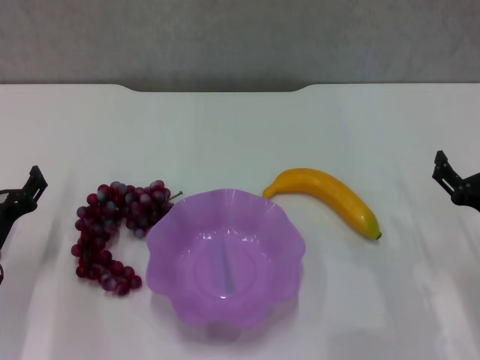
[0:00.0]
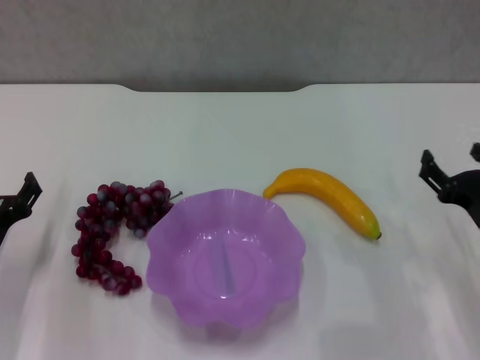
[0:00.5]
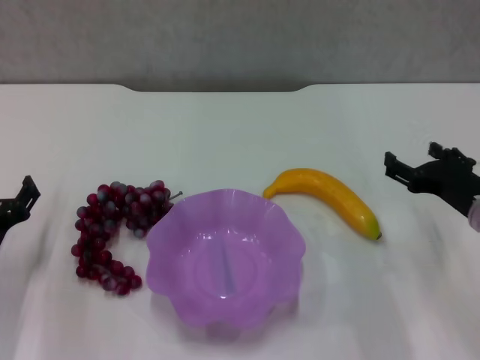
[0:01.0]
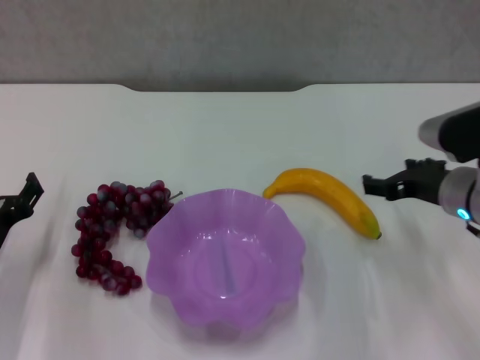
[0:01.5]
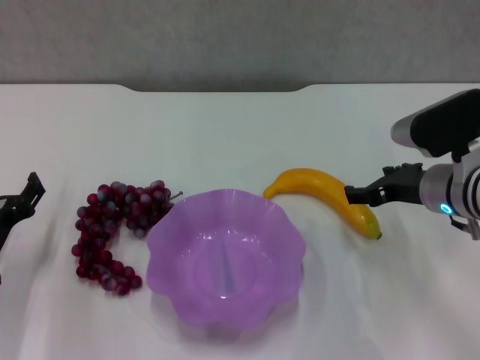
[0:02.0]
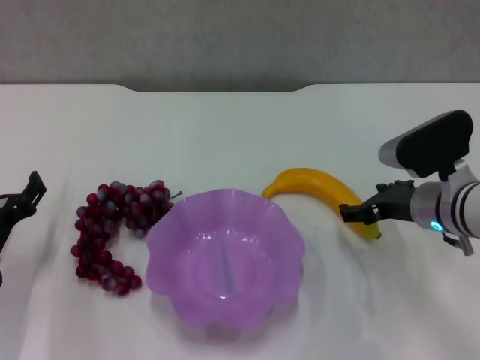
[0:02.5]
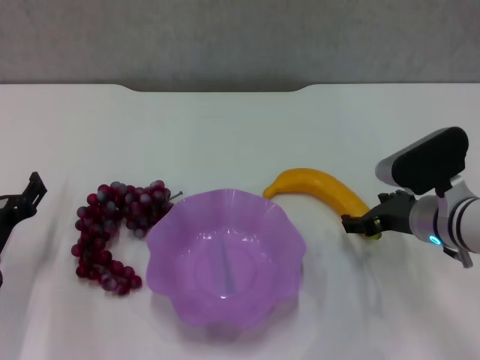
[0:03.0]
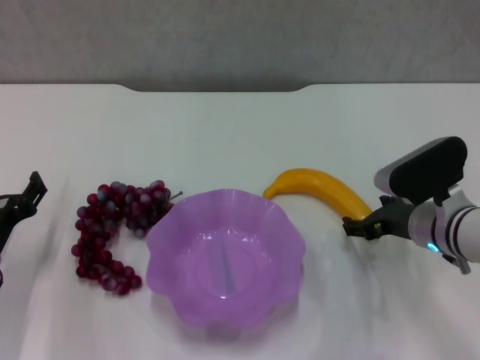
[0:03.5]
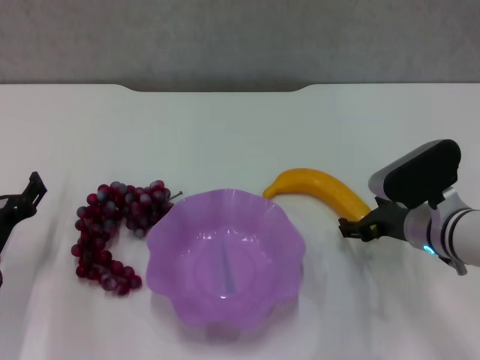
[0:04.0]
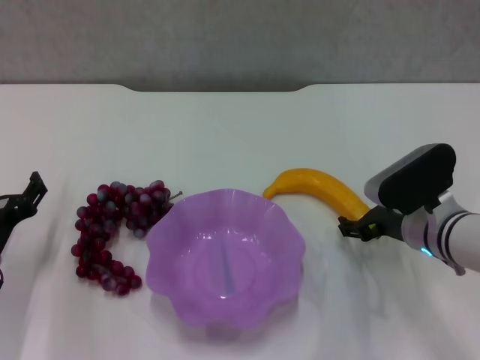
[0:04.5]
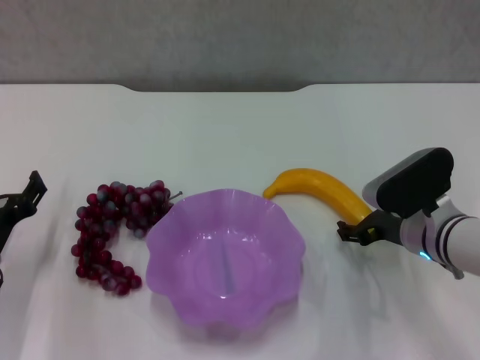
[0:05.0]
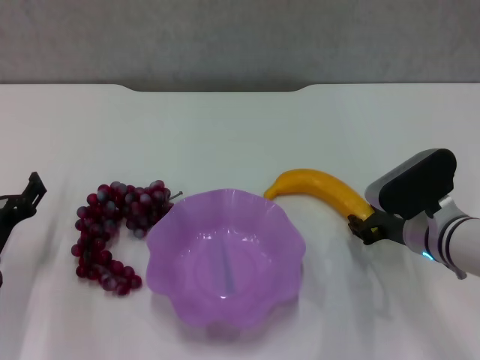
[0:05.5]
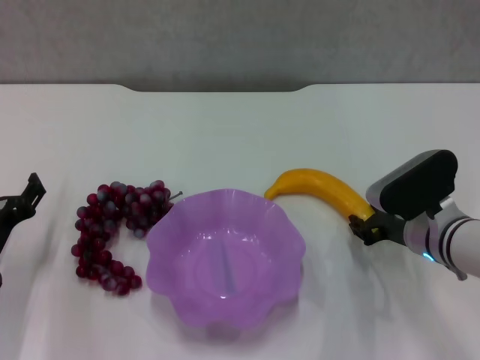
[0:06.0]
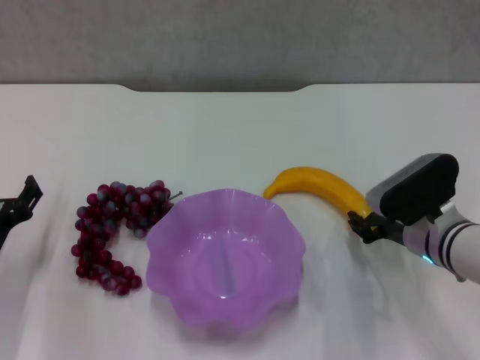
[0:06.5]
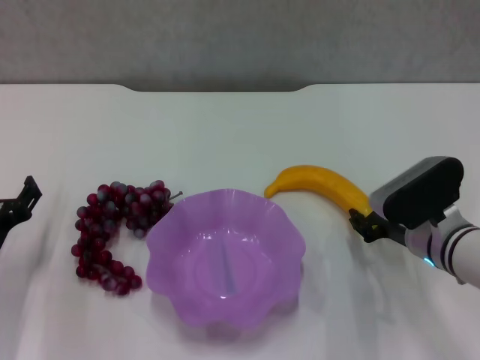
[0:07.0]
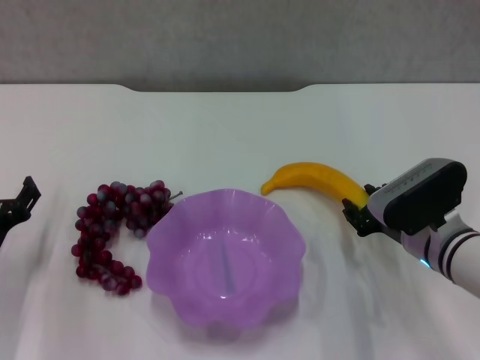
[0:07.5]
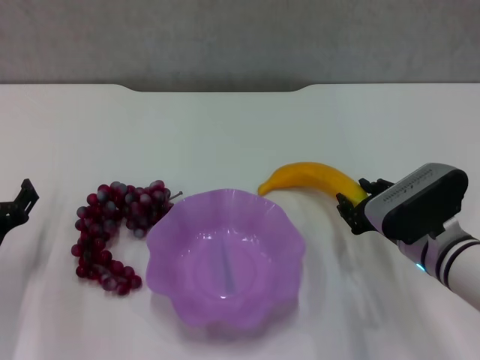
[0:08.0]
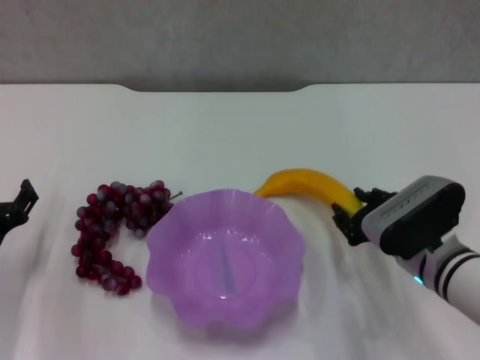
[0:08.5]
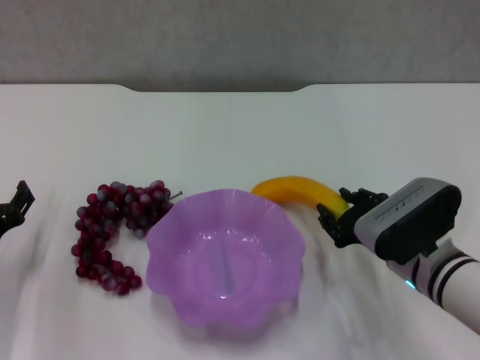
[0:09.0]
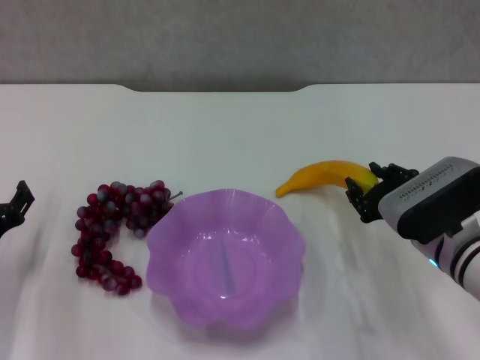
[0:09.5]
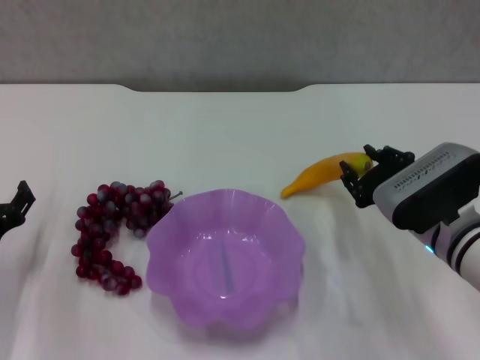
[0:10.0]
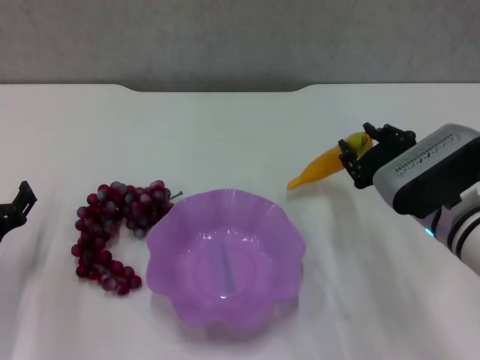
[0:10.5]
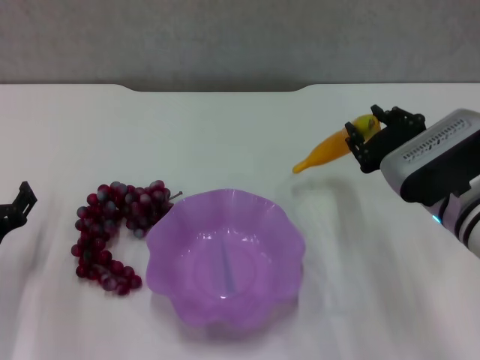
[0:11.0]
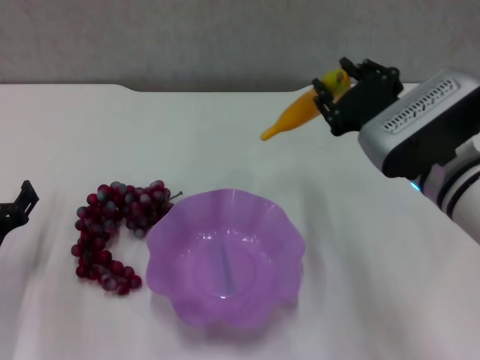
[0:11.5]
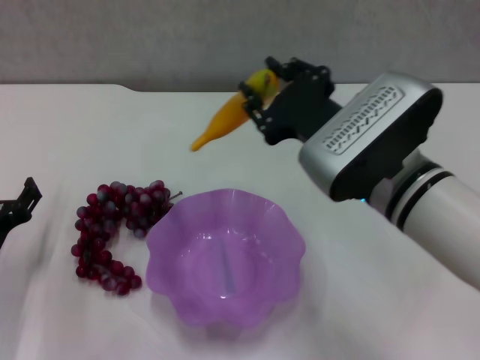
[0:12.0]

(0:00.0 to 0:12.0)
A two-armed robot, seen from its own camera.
Step, 0:00.0 - 0:06.0: Grasp the banana with right gripper.
0:00.0 - 0:02.0: The right gripper goes some 15 cm forward, to the left and upward.
0:02.0 - 0:04.0: The right gripper changes place by roughly 5 cm.
0:04.0 - 0:06.0: The right gripper closes up.
0:06.0 - 0:08.0: There are only small adjustments of the grippers.
0:08.0 - 0:10.0: There are only small adjustments of the grippers.
0:10.0 - 0:12.0: The right gripper is displaced upward and to the left by approximately 15 cm.

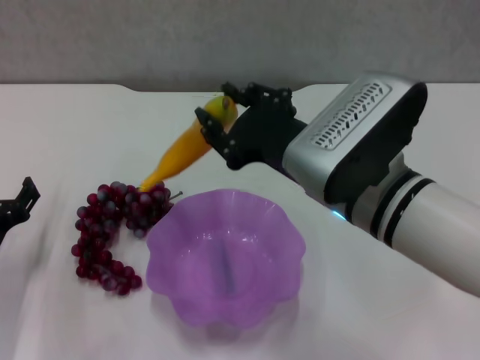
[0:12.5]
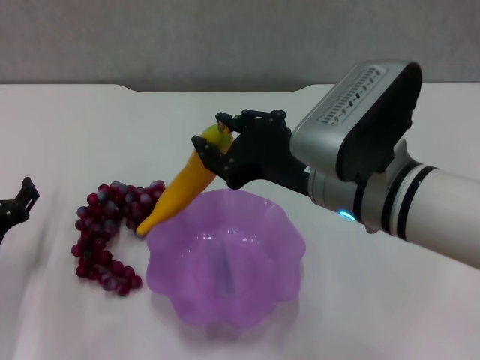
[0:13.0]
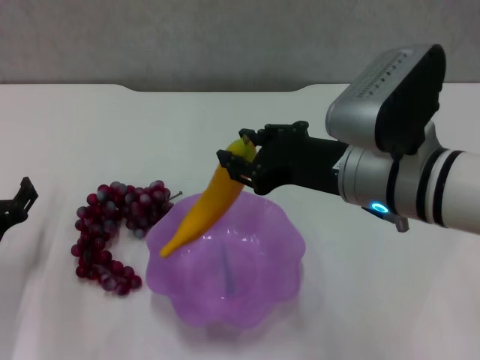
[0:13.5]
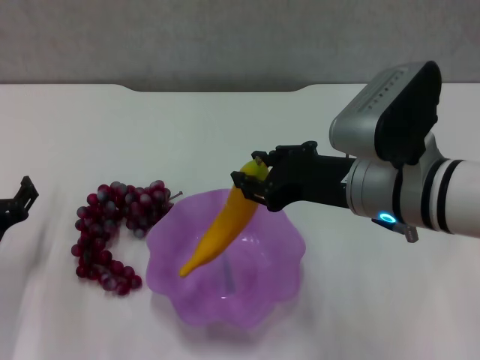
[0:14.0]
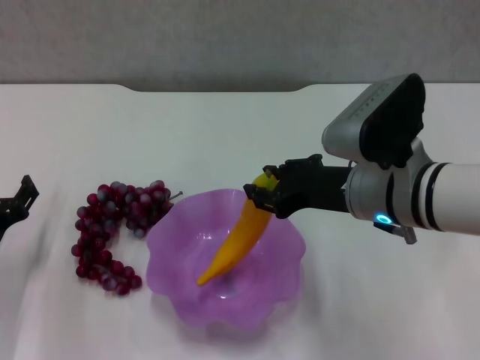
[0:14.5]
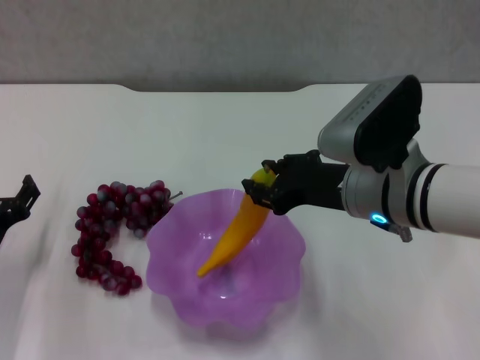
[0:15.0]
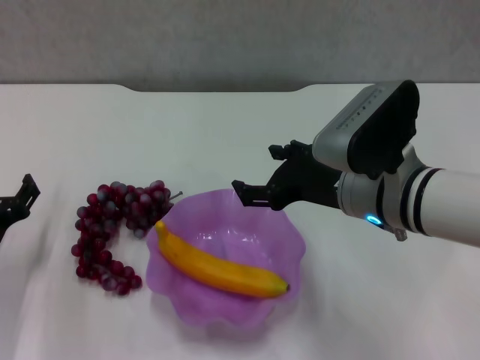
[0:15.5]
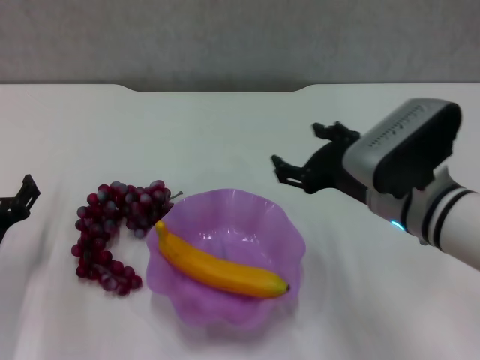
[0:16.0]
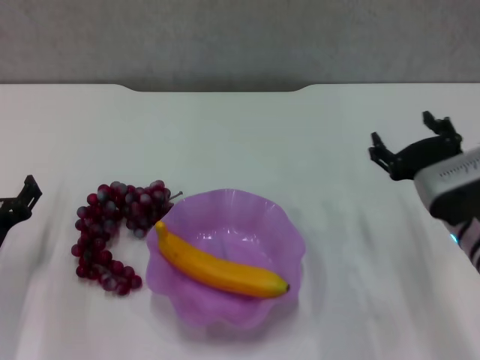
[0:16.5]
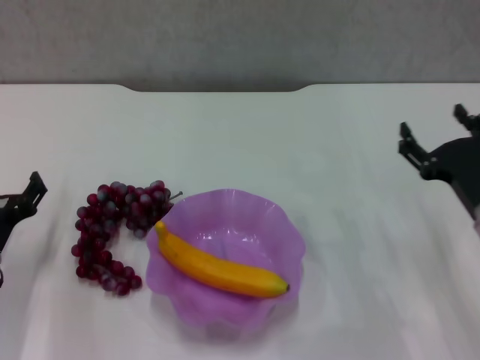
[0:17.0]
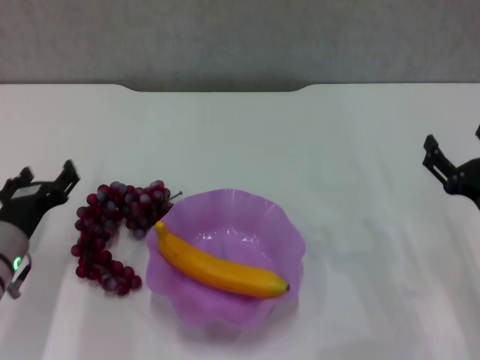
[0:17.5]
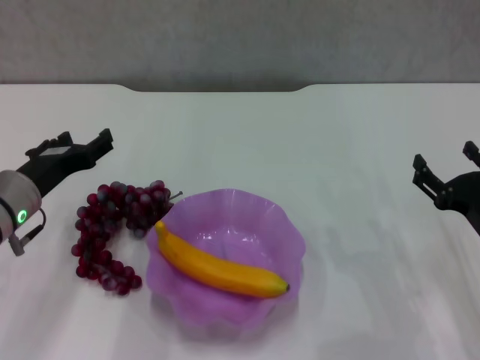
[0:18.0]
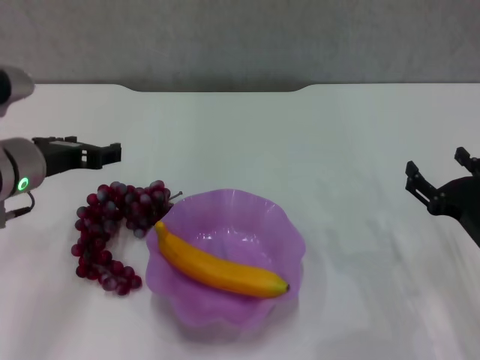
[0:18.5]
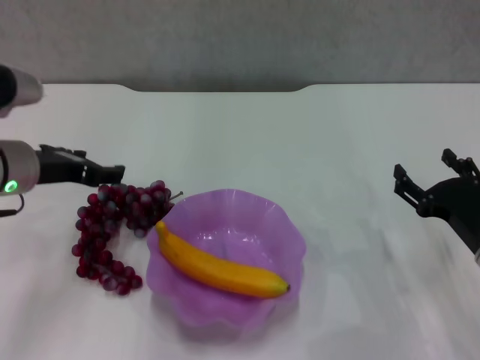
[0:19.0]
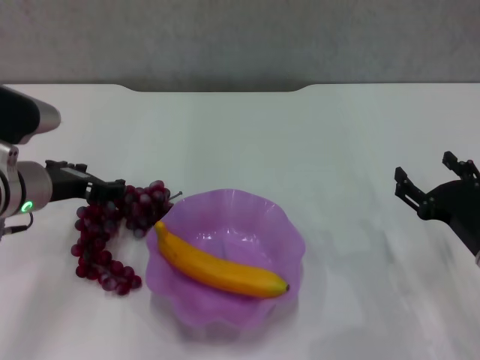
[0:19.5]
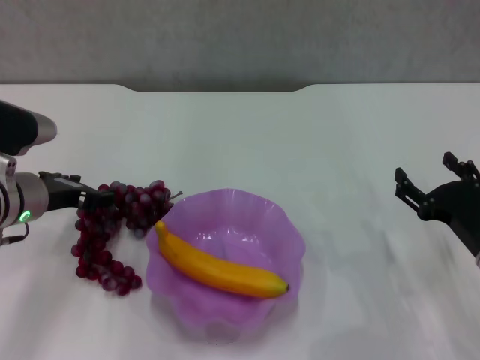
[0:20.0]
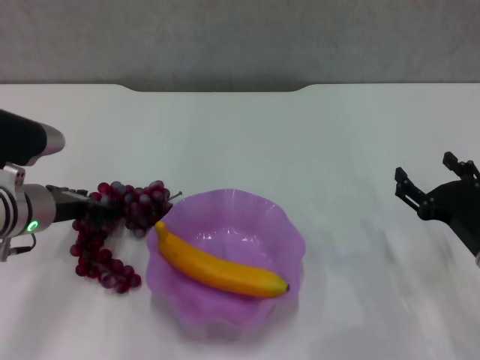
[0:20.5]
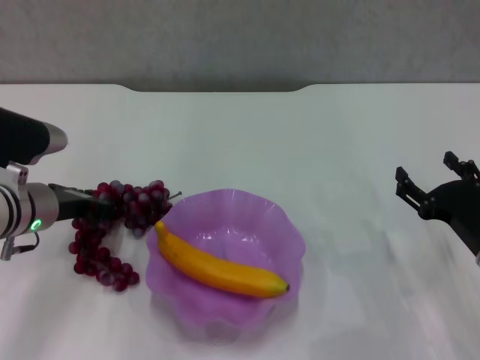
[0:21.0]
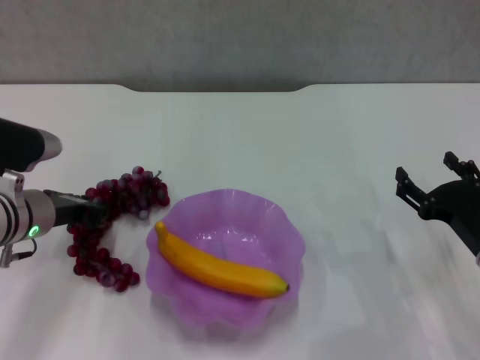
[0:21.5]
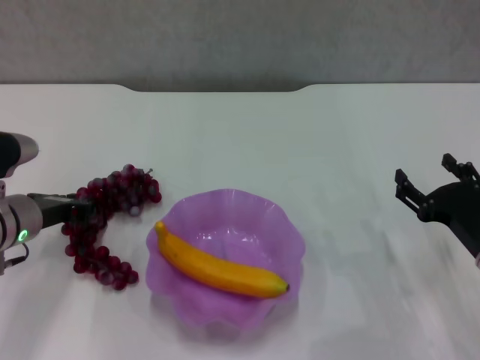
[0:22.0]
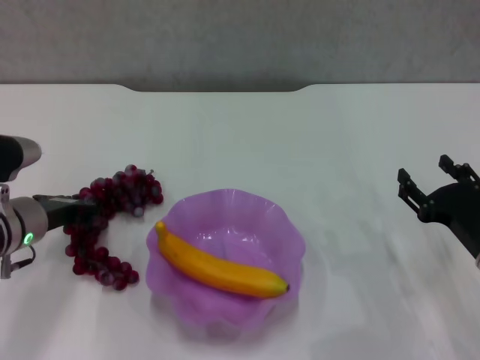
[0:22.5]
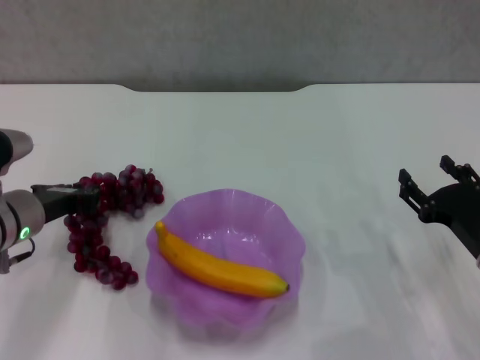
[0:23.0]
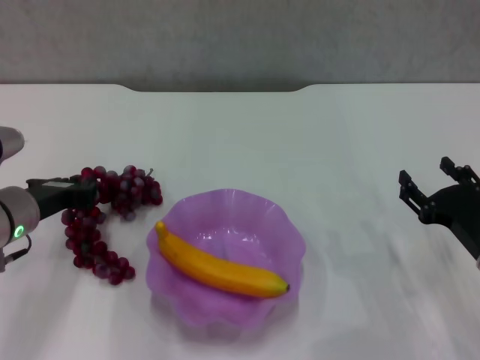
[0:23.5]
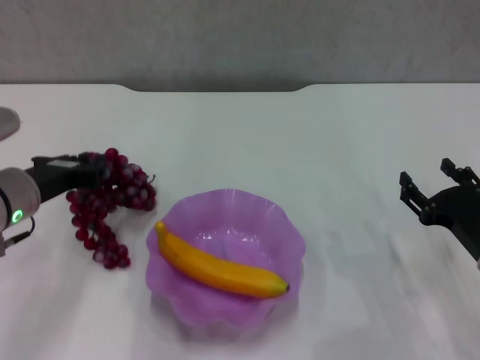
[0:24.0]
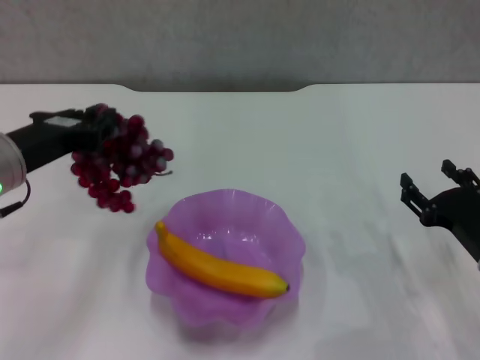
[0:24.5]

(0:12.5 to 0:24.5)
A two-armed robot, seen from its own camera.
Step, 0:12.5 - 0:15.0: Place the banana in the purple plate with right gripper.
Step, 0:16.0 - 0:22.0: Grasp the grape with left gripper.
0:12.5 - 0:14.5: The right gripper shifts by approximately 5 cm.
0:14.5 - 0:16.5: The right gripper travels to the right and downward by roughly 10 cm, and opens its fingers.
0:16.5 - 0:18.5: The right gripper is displaced to the right by approximately 5 cm. Meanwhile the left gripper heads upward, forward and to the right, covering approximately 15 cm.
0:18.5 - 0:20.5: The left gripper moves downward, about 5 cm.
0:20.5 - 0:22.5: The left gripper closes its fingers.
0:22.5 - 0:24.5: The left gripper travels upward by about 10 cm.

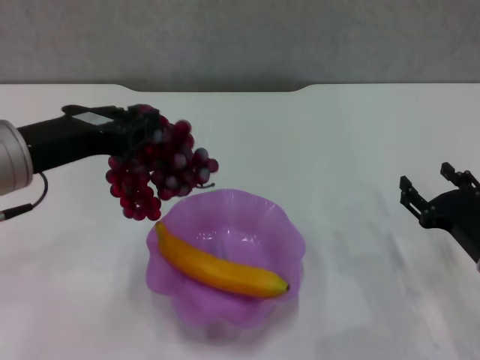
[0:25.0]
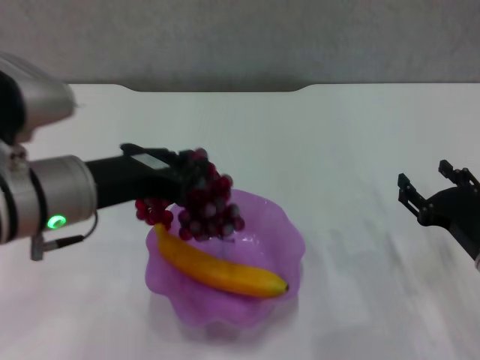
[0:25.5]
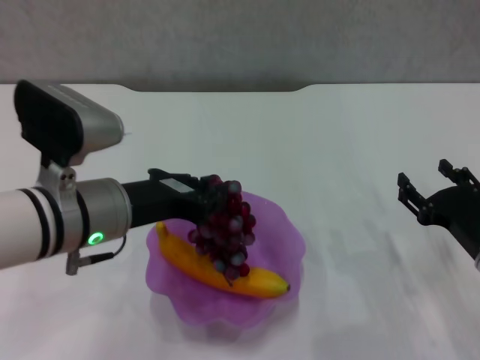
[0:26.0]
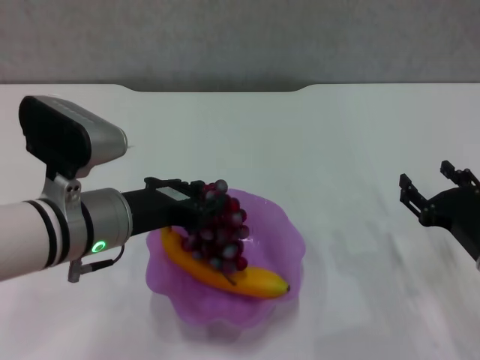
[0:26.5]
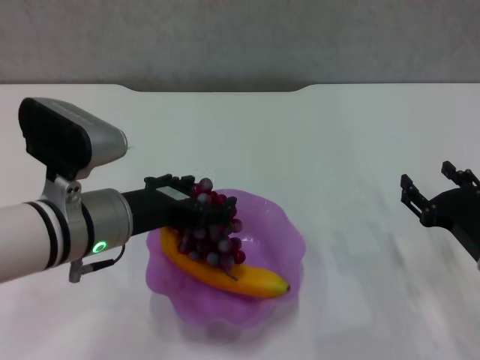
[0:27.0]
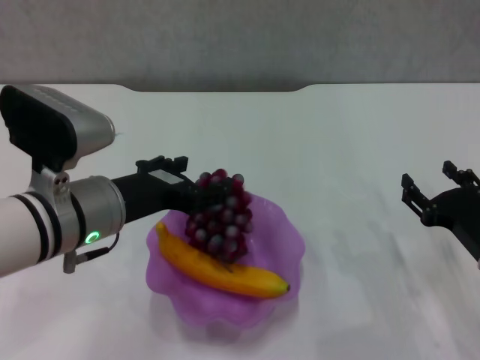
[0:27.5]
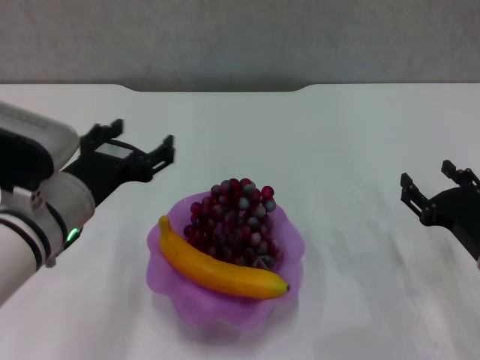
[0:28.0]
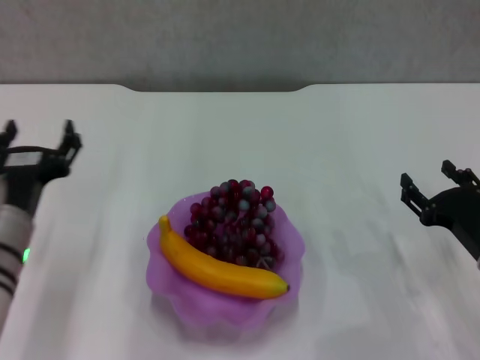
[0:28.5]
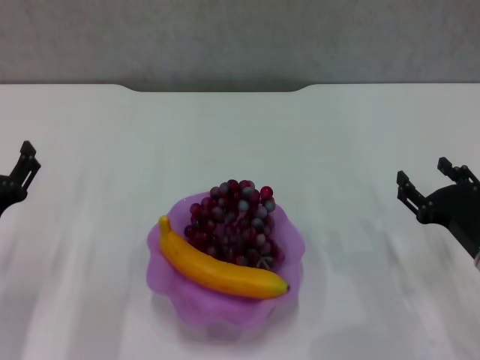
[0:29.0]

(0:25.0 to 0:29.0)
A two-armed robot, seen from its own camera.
Step, 0:25.0 - 0:27.5: Place the grape in the purple plate with left gripper.
0:25.0 - 0:27.0: The left gripper moves downward and to the right, approximately 10 cm, and opens its fingers.
0:27.0 - 0:29.0: The left gripper moves to the left and downward, roughly 15 cm, and opens up.
